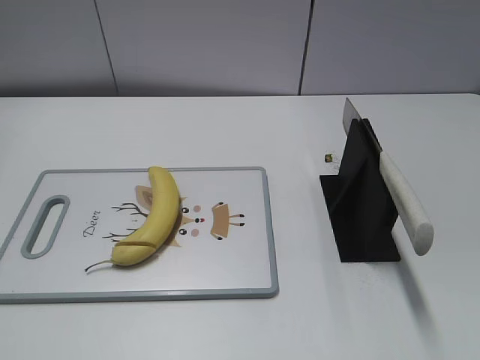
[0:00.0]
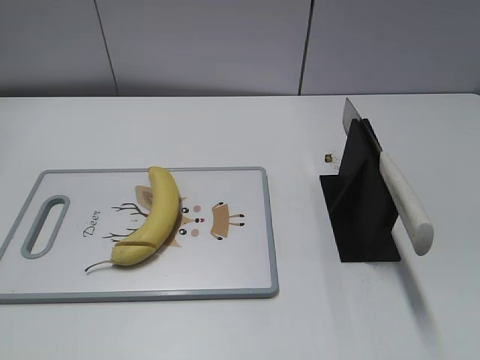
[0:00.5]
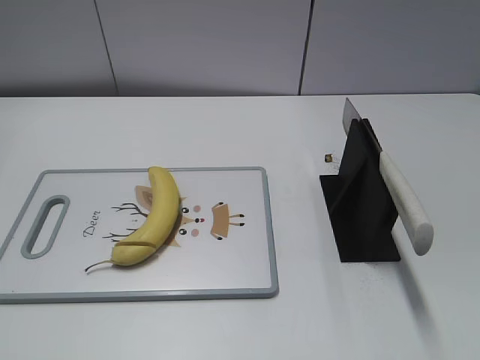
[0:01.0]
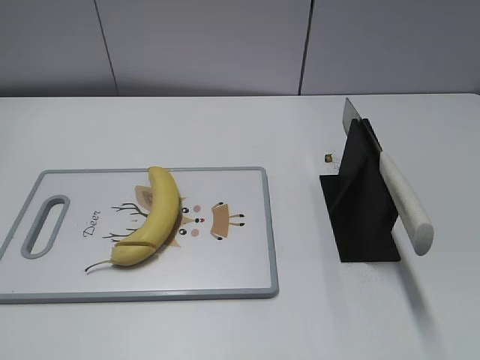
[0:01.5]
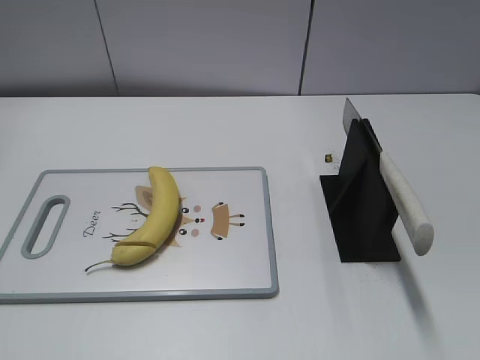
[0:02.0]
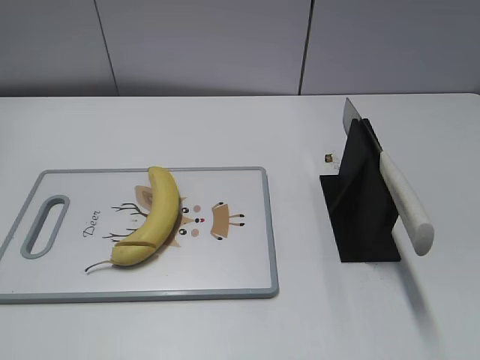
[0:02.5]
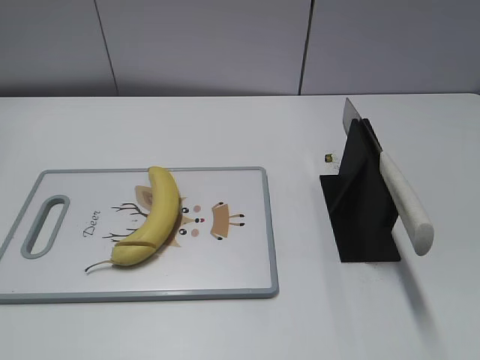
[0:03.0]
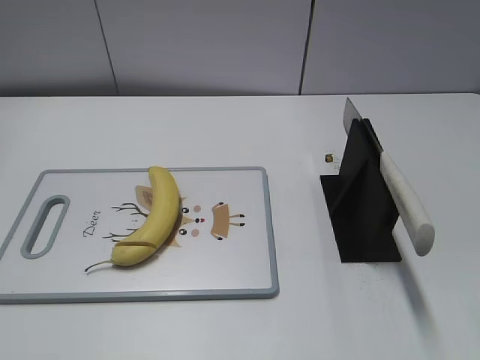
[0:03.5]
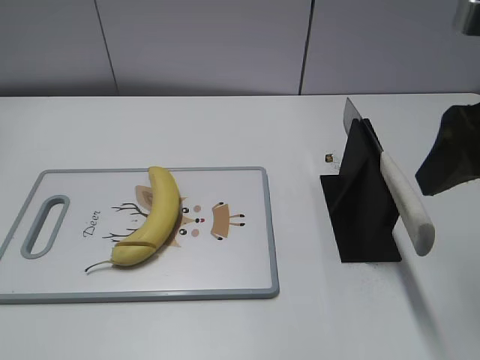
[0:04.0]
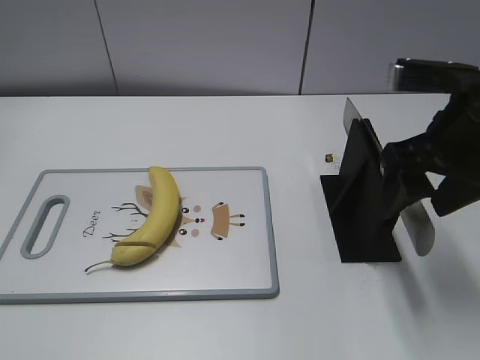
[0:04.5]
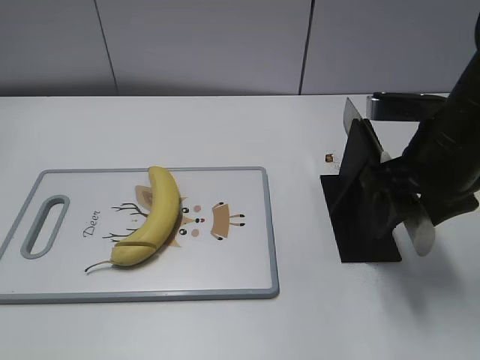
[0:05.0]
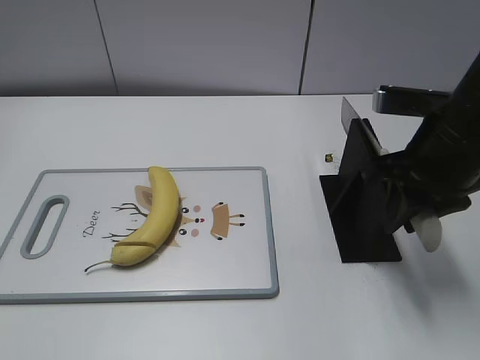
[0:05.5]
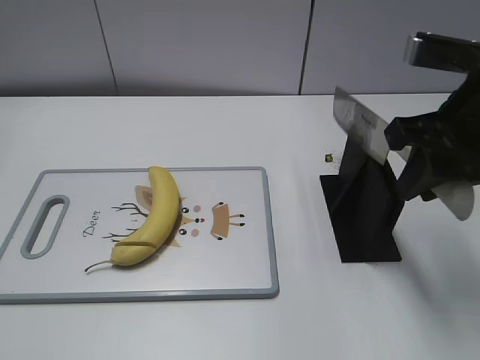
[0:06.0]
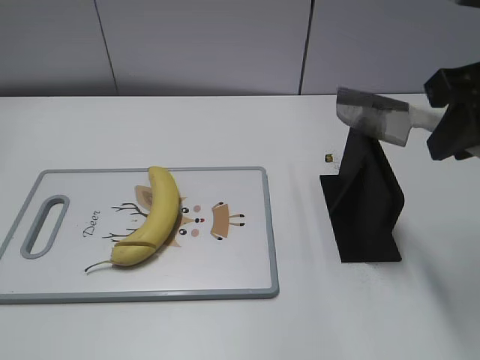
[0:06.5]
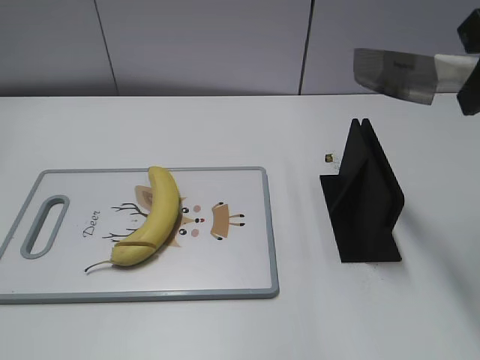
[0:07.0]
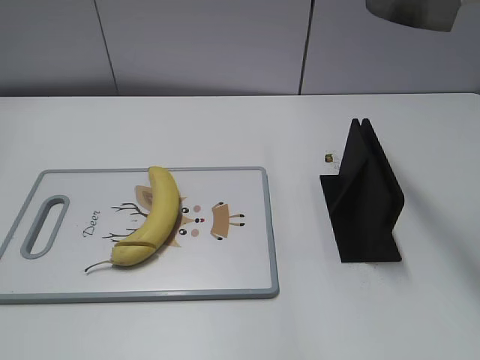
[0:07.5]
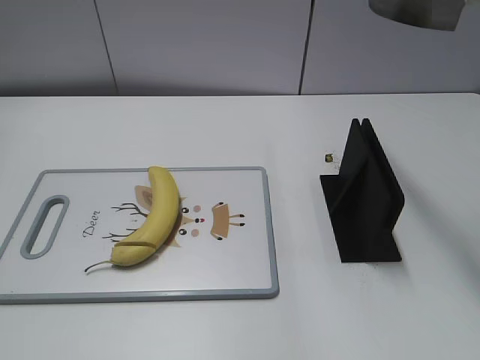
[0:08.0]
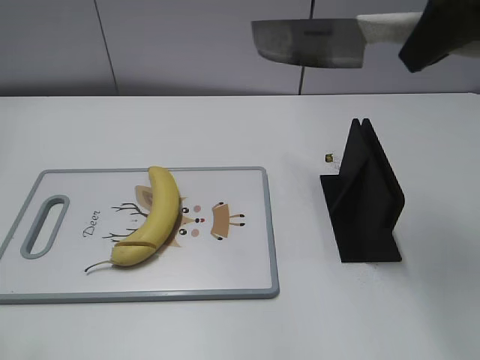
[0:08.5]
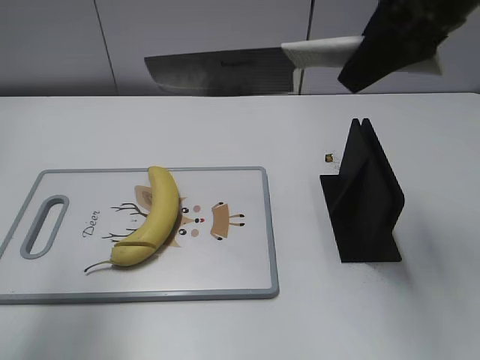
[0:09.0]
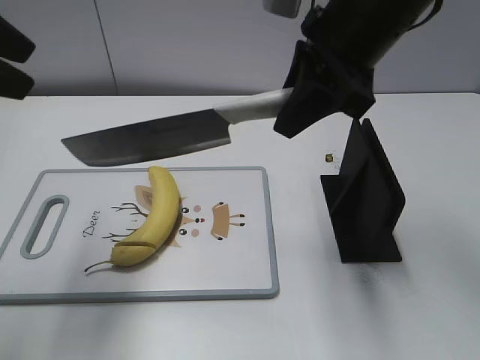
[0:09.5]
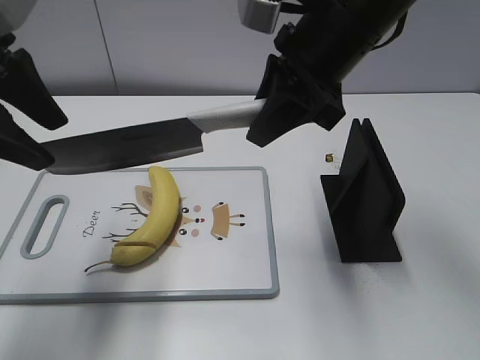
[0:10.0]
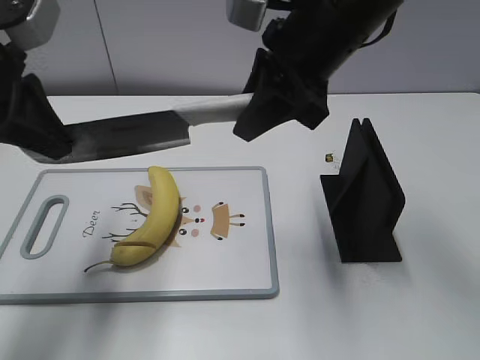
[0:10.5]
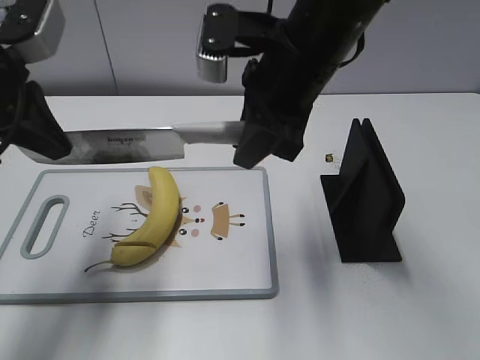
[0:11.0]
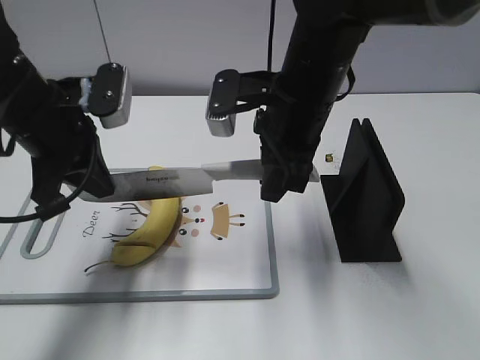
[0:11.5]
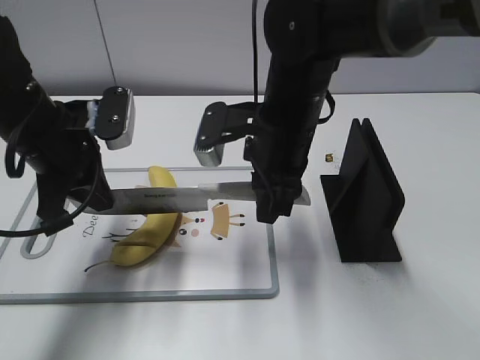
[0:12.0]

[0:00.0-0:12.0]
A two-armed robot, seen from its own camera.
Task of the whole recording: cut banana.
Step, 0:00.0 to 0:06.5: Grab the knife handle with your right hand.
0:02.0 to 0:04.0: The right gripper travels forward by approximately 20 cm.
0:04.0 to 0:06.0: The right gripper closes its fingers.
0:06.0 to 0:08.0: The right gripper moves upward, roughly 15 cm.
0:08.0 to 0:10.0: The right gripper is displaced to the left, downward and forward by some 20 cm; the left gripper goes about 25 cm forward.
0:10.0 to 0:12.0: Both grippers travel together downward, approximately 10 cm. The left gripper closes up.

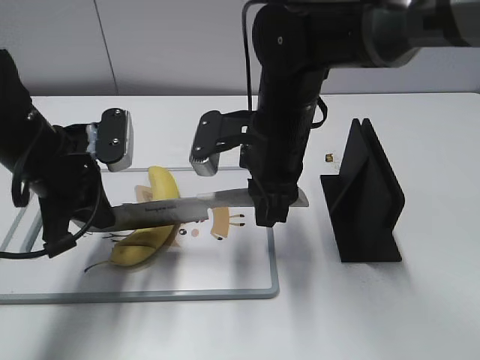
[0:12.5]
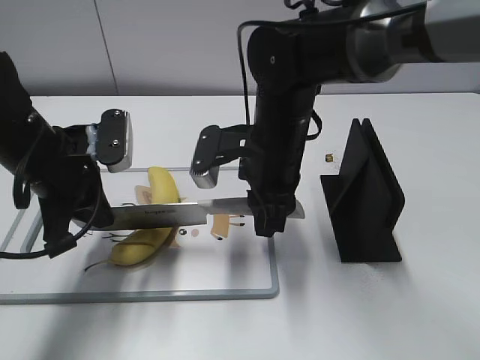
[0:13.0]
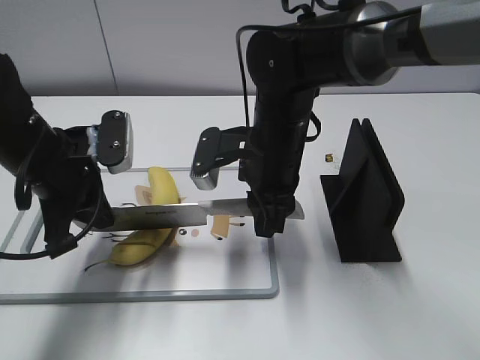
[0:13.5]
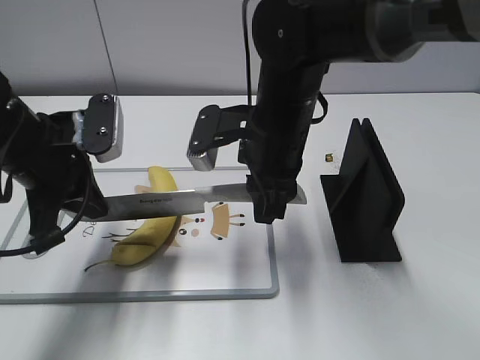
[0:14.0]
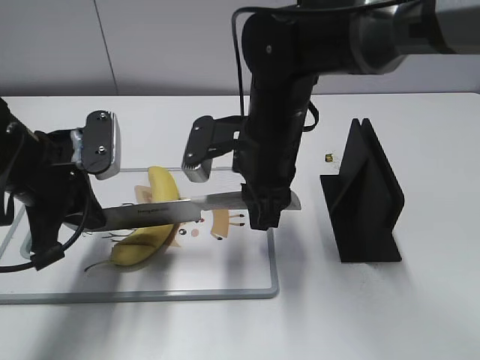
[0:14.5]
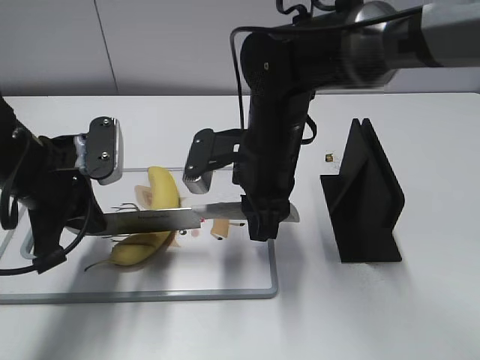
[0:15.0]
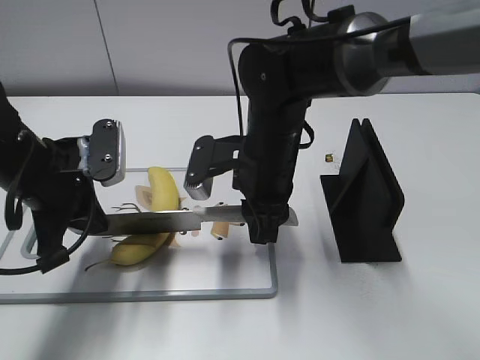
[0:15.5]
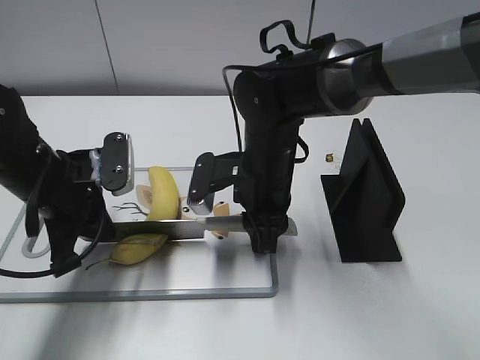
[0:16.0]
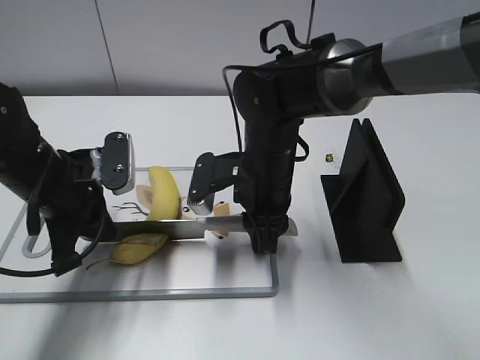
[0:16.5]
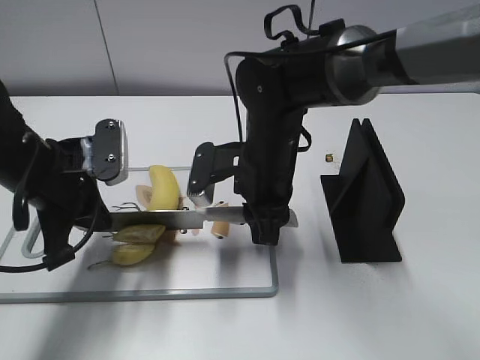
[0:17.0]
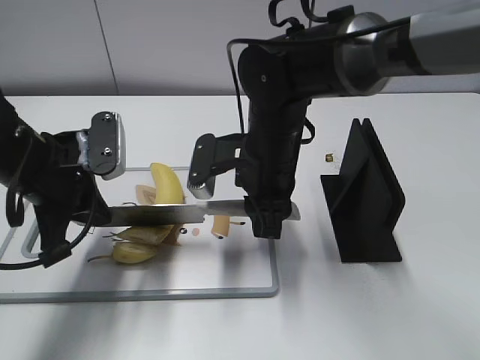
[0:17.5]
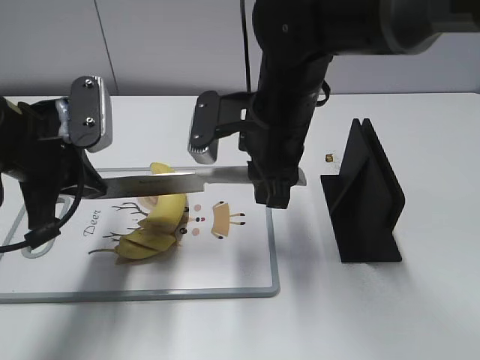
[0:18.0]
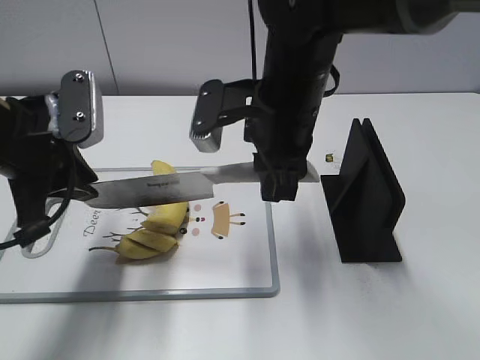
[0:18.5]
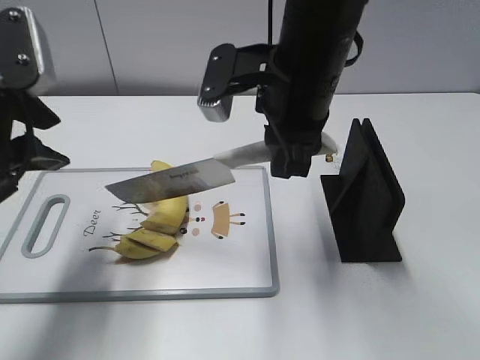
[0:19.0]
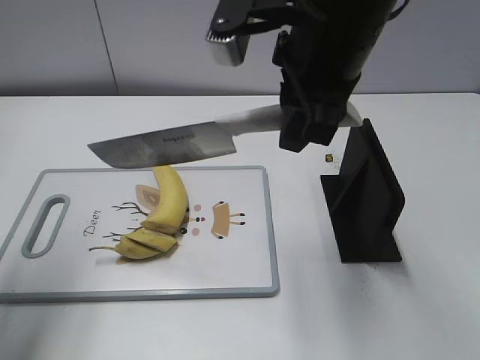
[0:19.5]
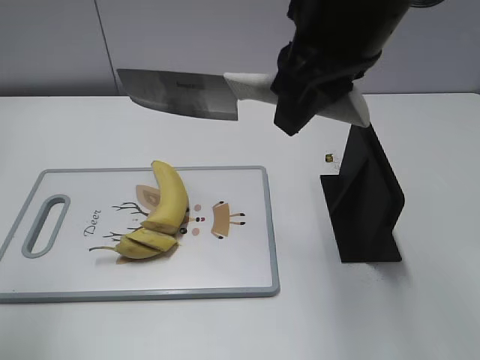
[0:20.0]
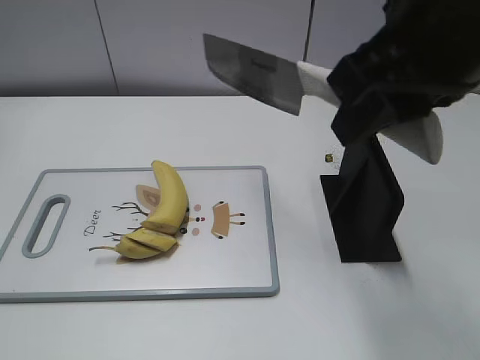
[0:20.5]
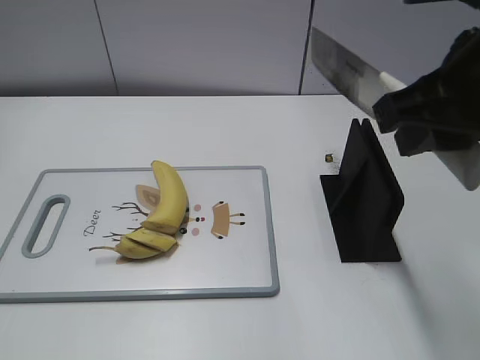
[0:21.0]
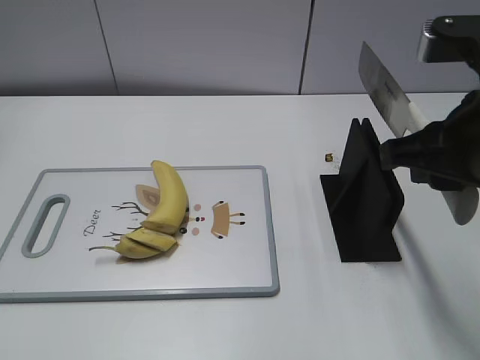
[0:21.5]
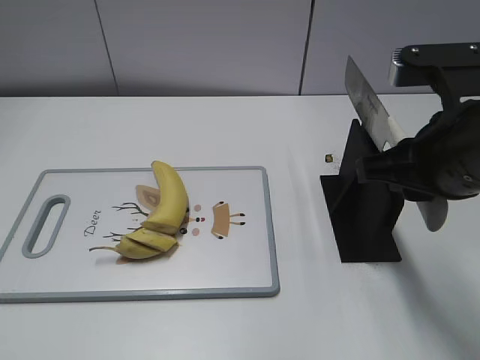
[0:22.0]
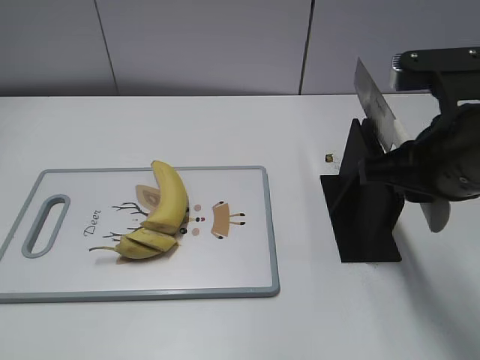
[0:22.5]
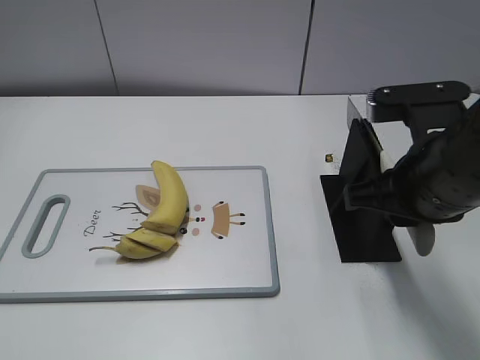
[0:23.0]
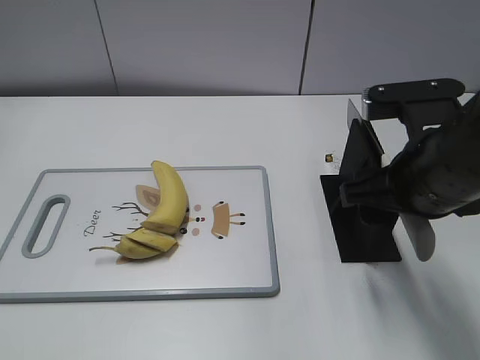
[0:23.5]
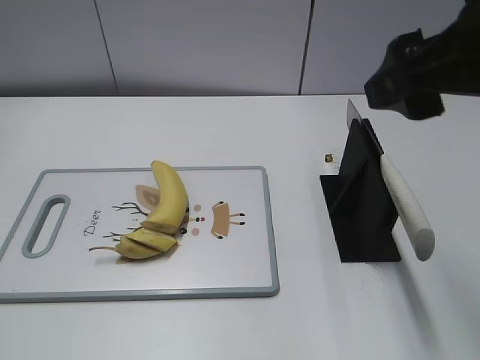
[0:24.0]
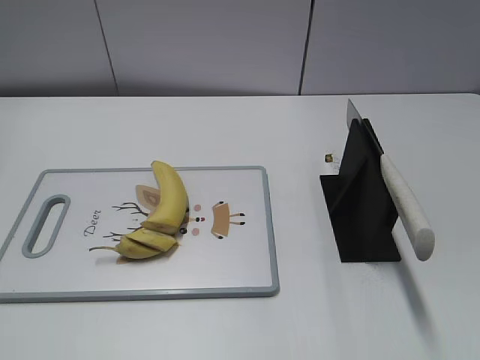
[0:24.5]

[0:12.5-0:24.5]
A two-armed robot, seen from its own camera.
Task of the whole recording: cut banana.
Step, 0:13.5 to 0:20.0: Cut the banana with your right hand.
Step, 0:20.5 to 0:23.0: Lift the knife with your right hand.
0:12.5 to 0:14.5: The grippers make only small movements.
0:14.5 to 0:16.5: The right gripper travels downward by some 5 cm.
0:16.5 to 0:18.5: Both grippers travel together upward, approximately 10 cm. The left gripper opens its fingers.
0:18.5 to 0:20.5: The left gripper shifts some 25 cm backward and to the left, and opens up. Meanwhile the right gripper shifts roughly 20 cm upward, backward and to the right.
0:20.5 to 0:22.5: The left gripper moves backward, roughly 5 cm. The right gripper moves downward, approximately 10 cm.
0:22.5 to 0:24.5: The right gripper travels backward, upward and to the right by approximately 15 cm, and opens its fingers.

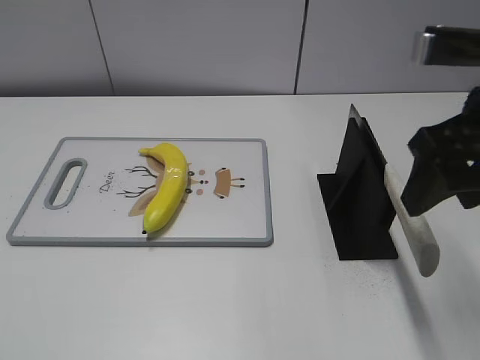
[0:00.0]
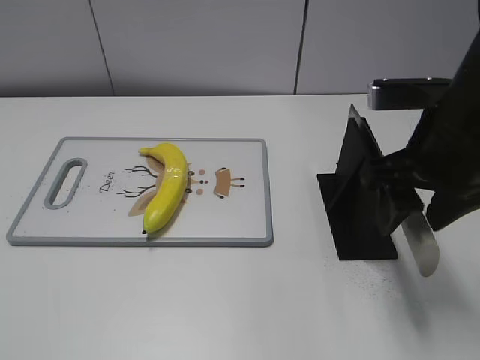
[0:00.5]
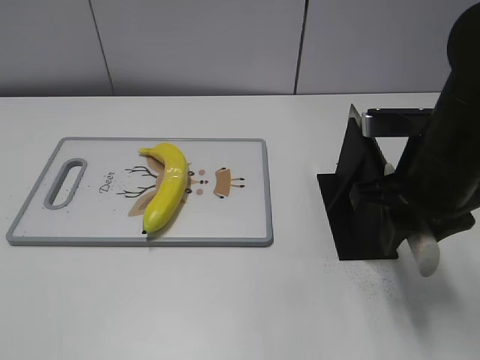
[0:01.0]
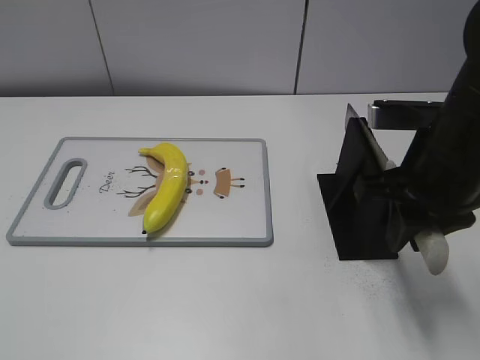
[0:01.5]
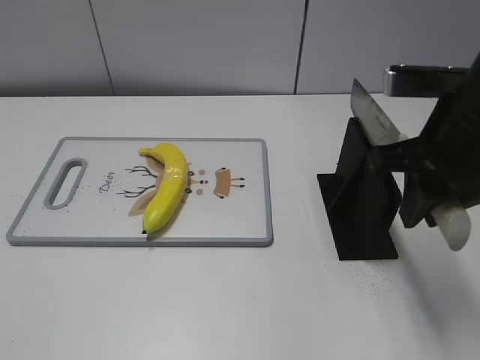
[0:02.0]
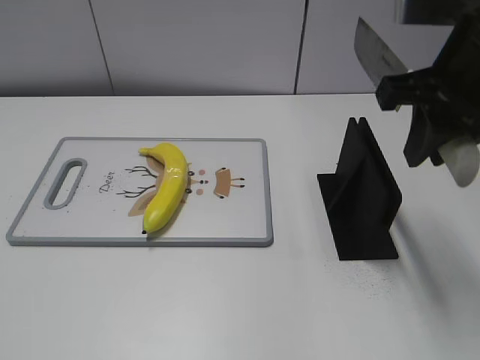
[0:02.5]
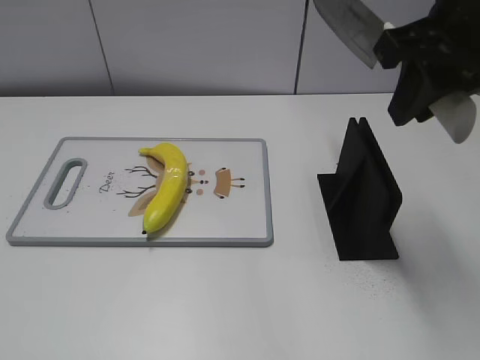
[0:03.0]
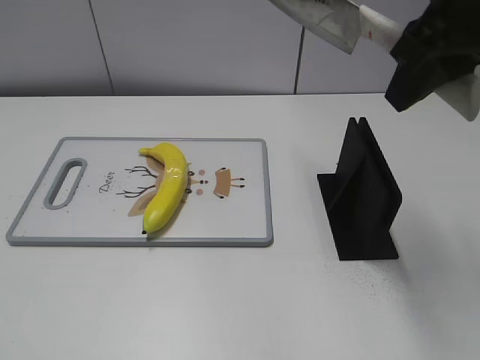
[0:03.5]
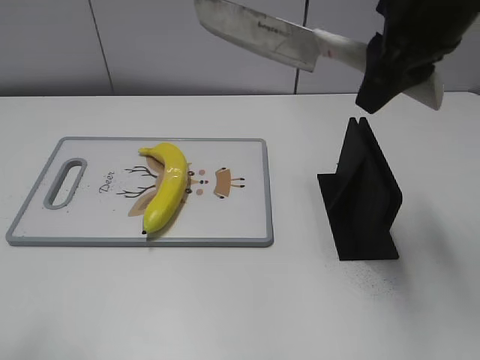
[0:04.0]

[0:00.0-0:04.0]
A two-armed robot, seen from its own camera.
Task of the whole recording: cut plastic banana.
Step, 0:00.0 to 0:02.5: Grab the knife handle with your right hand.
0:00.0 to 0:02.0: The right gripper closes up.
0:02.0 to 0:04.0: The left gripper is displaced forward and upward by roughly 10 cm, and opens, while the right gripper shifts some 10 cm upward and forward.
